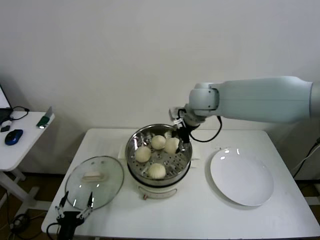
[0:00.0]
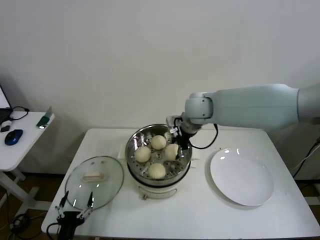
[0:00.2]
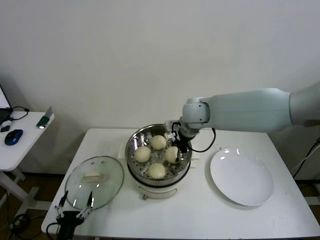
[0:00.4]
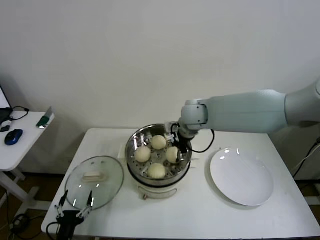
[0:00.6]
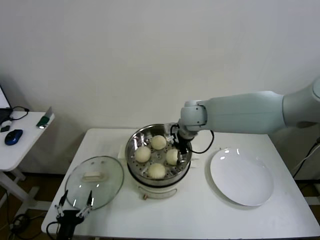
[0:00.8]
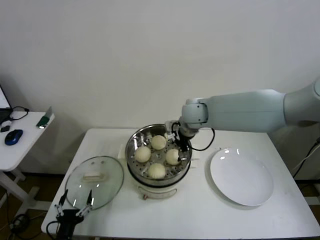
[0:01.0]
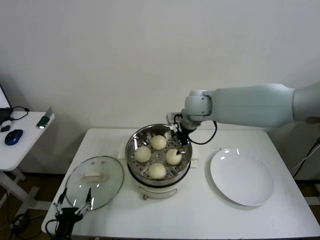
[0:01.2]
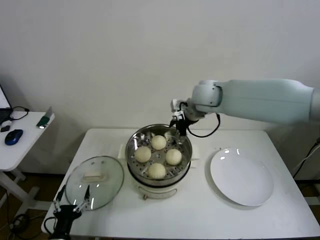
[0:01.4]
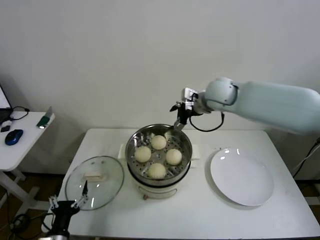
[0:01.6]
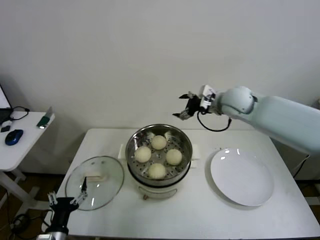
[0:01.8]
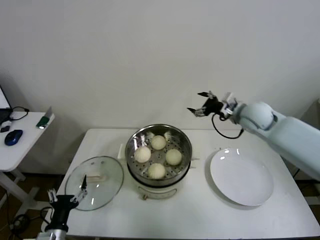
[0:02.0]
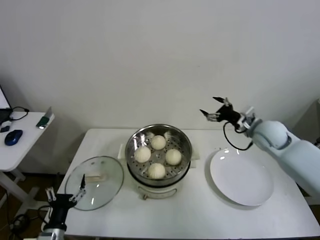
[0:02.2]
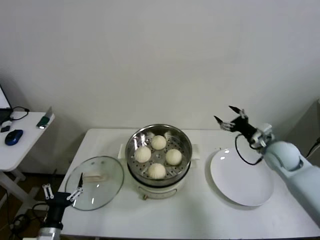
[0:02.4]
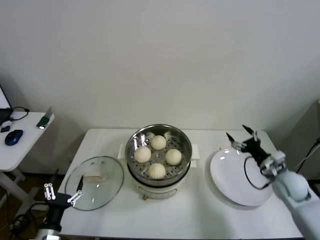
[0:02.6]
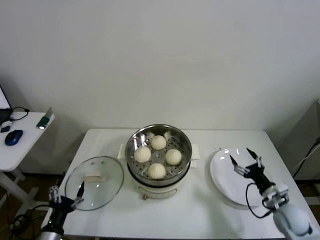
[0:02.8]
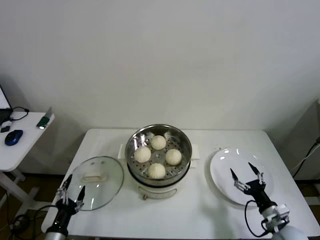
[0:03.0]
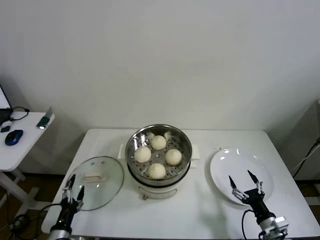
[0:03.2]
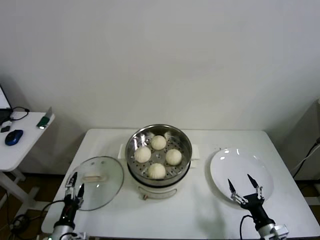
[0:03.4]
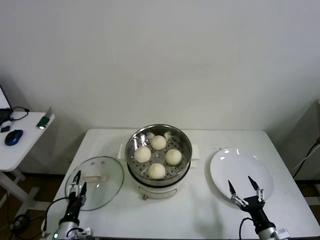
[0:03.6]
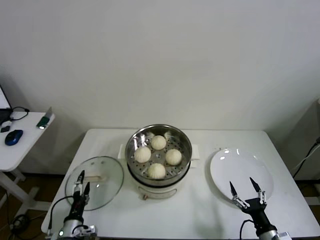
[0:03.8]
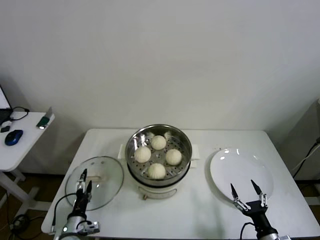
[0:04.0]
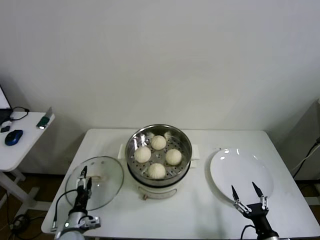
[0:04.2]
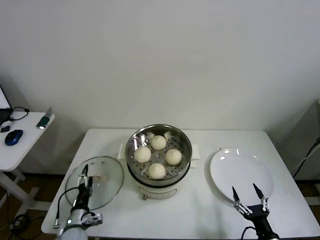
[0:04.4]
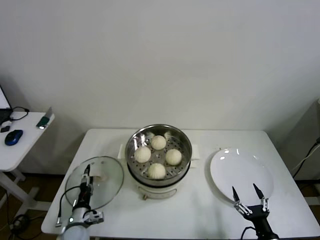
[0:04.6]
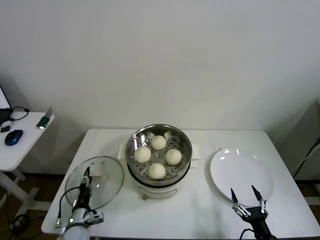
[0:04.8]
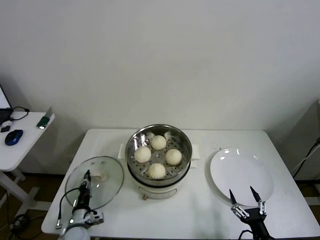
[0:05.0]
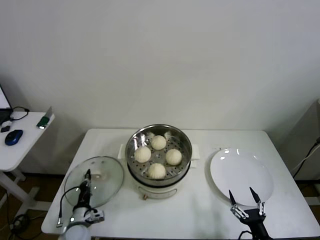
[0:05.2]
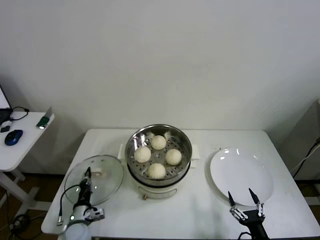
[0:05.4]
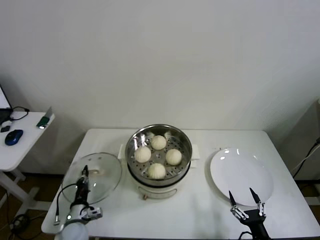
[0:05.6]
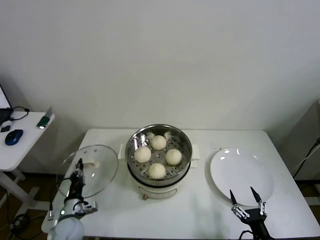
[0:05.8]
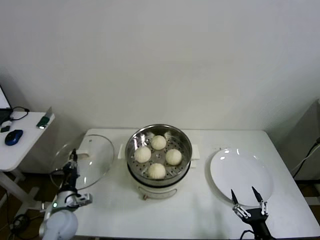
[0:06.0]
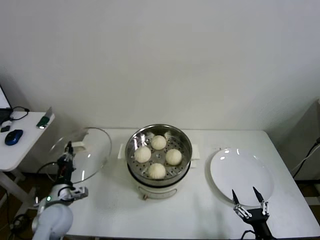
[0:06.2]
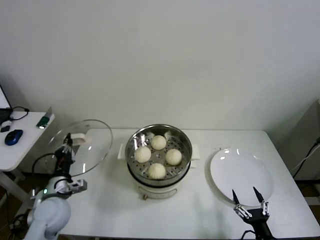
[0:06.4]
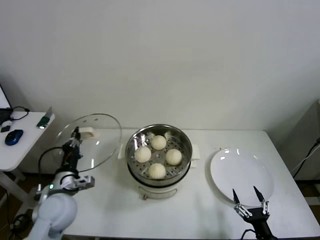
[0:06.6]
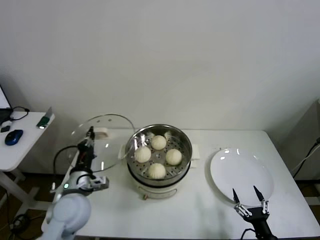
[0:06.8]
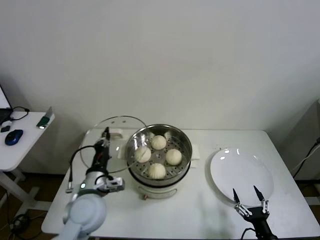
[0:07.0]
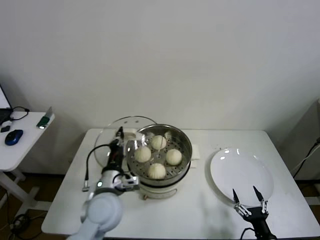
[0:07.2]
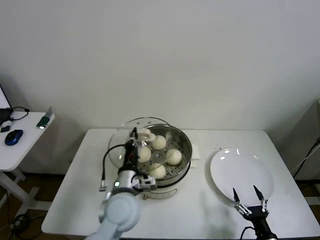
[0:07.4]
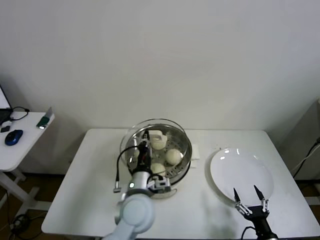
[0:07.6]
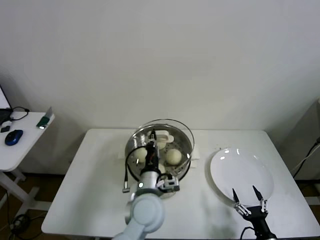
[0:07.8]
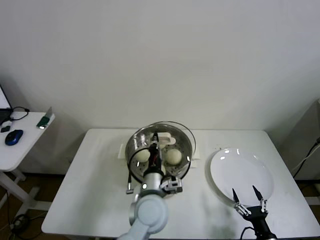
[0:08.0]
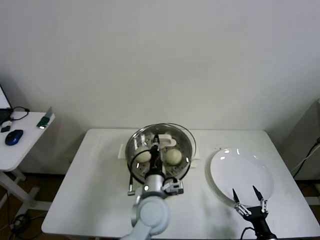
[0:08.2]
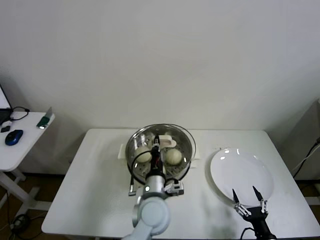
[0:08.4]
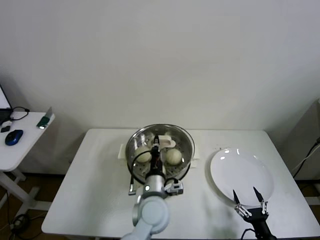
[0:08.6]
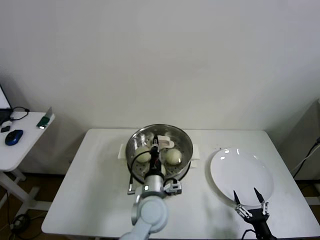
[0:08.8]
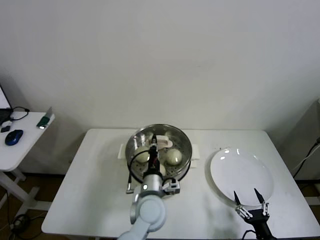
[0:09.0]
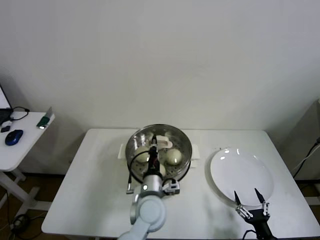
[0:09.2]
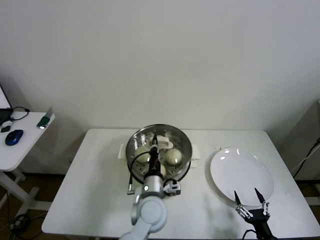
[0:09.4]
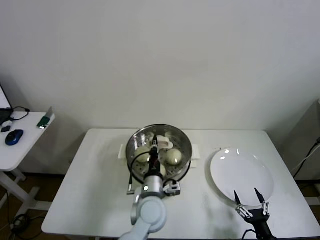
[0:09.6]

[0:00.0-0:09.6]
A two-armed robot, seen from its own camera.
Step, 1.2 to 5.0 s: Grasp the pot lid with left gripper.
0.0 to 1.6 s: The right gripper goes roughly 5 cm to the right, and opens.
1.6 to 3.2 s: The right gripper goes some 50 cm downward, backward and to the right.
3.2 to 4.8 s: The right gripper goes about 5 cm backward; the left gripper goes some 10 cm forward and downward, and closes up.
4.8 to 6.4 s: The left gripper shifts roughly 15 cm upward, and closes.
6.4 to 8.0 s: The left gripper travels to the right by roughly 30 cm.
8.0 to 9.6 s: The grippers move only a little.

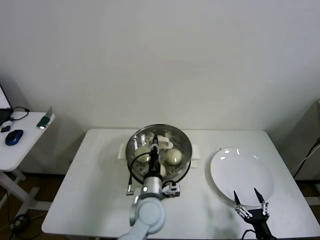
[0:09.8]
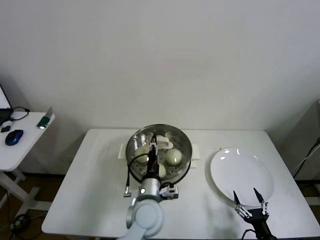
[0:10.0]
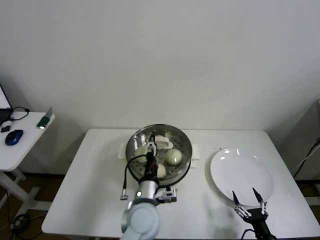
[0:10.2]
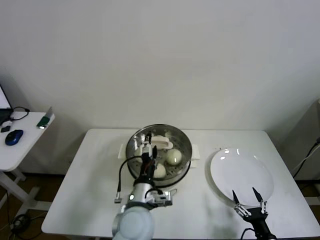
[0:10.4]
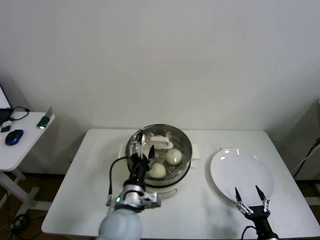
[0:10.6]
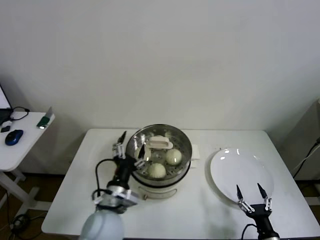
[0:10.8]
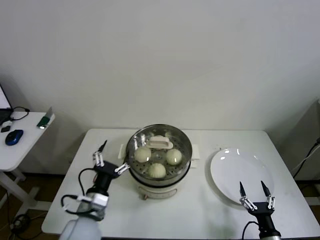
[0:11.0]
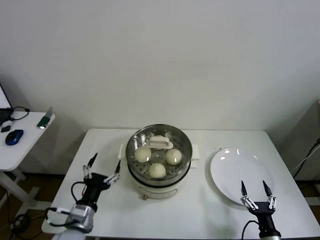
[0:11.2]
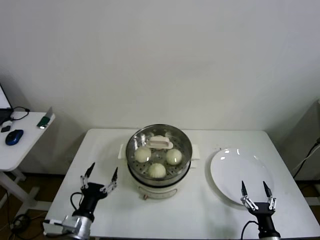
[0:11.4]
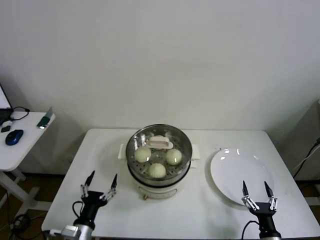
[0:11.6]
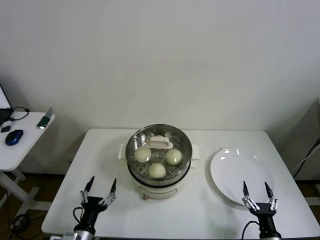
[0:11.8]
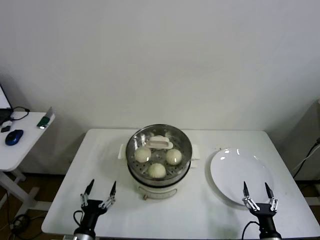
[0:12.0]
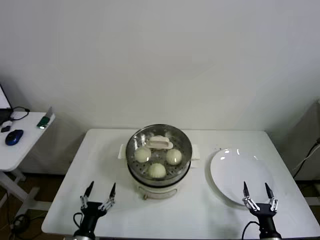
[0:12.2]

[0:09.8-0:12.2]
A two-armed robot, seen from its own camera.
9.8 to 11.0 s: The left gripper moves to the left, roughly 15 cm, and opens.
11.0 to 12.2 s: The left gripper shifts approximately 20 cm downward, backward and to the left.

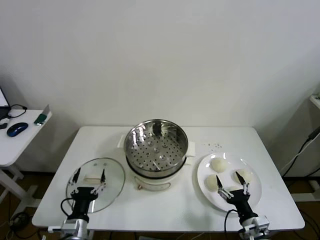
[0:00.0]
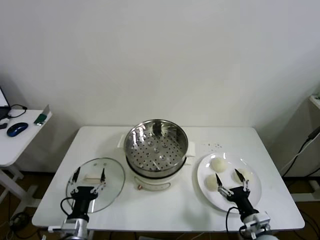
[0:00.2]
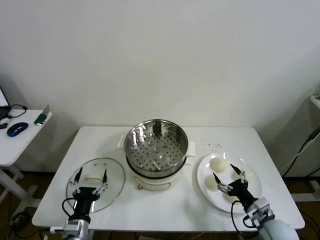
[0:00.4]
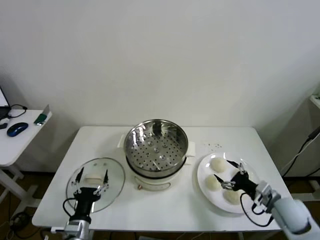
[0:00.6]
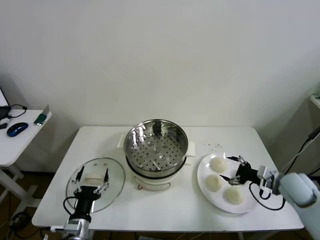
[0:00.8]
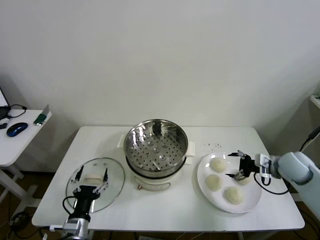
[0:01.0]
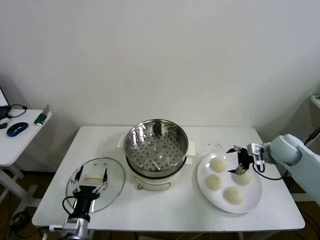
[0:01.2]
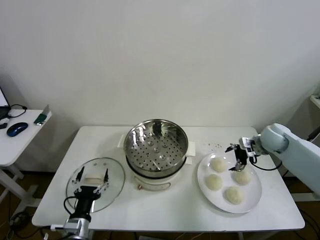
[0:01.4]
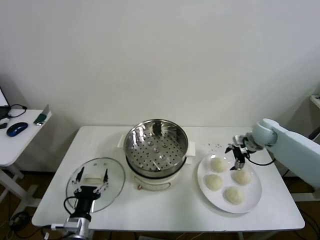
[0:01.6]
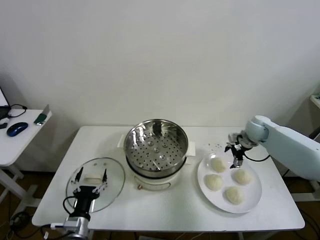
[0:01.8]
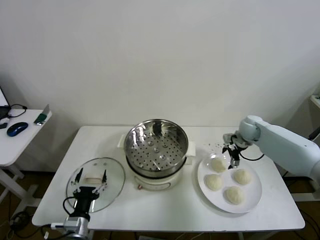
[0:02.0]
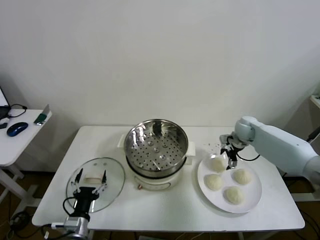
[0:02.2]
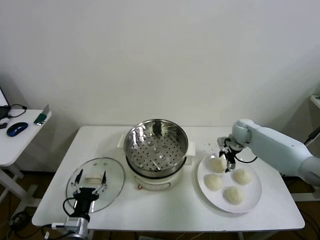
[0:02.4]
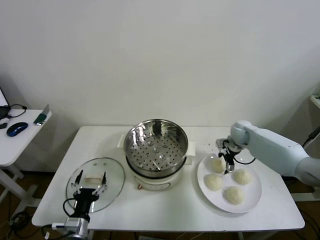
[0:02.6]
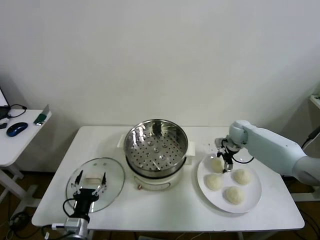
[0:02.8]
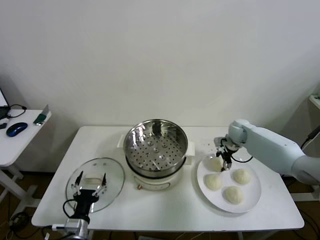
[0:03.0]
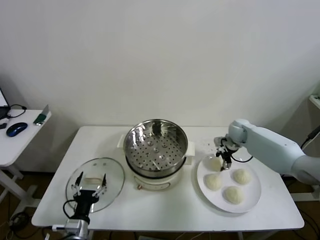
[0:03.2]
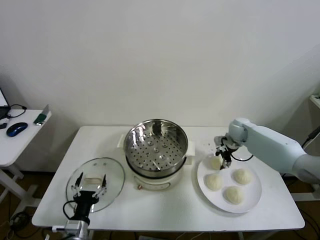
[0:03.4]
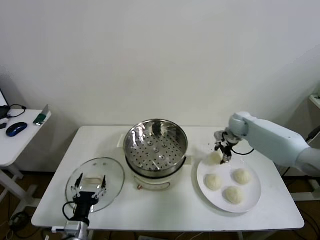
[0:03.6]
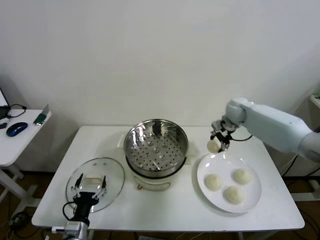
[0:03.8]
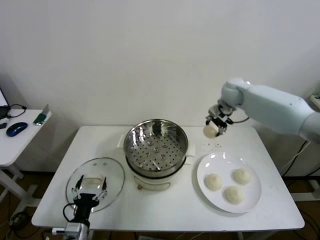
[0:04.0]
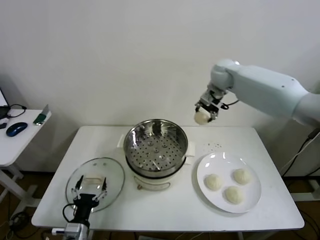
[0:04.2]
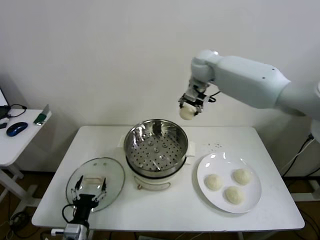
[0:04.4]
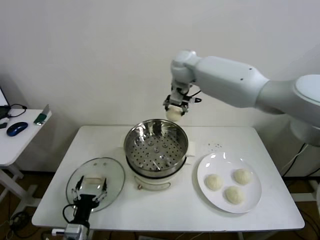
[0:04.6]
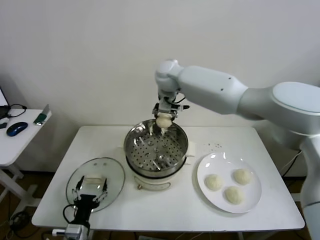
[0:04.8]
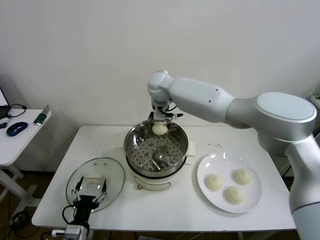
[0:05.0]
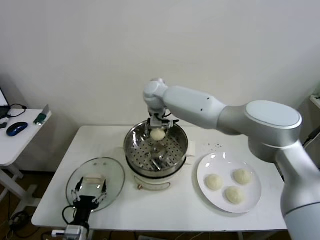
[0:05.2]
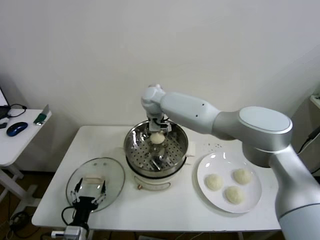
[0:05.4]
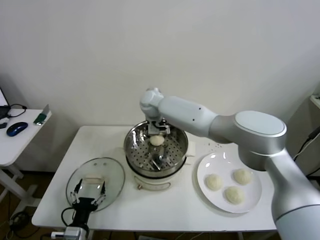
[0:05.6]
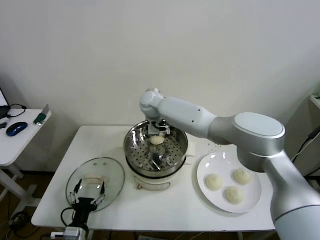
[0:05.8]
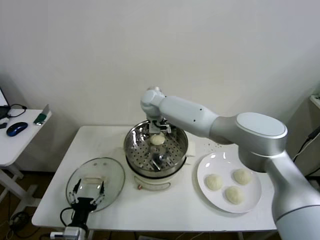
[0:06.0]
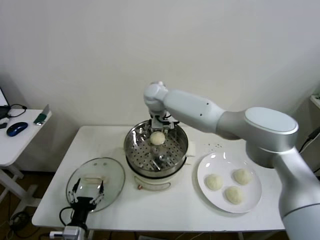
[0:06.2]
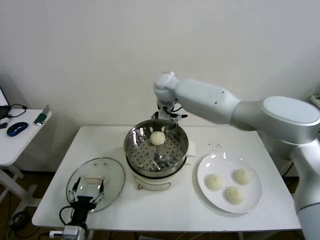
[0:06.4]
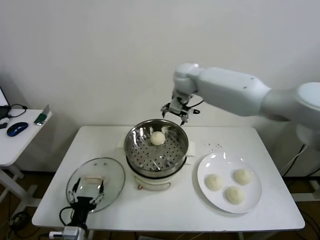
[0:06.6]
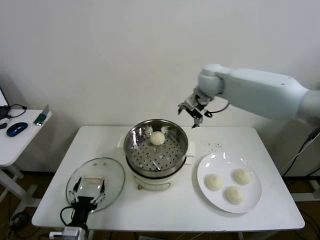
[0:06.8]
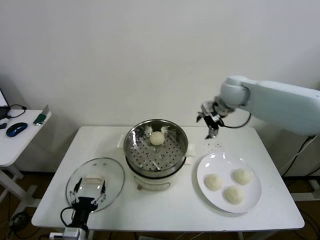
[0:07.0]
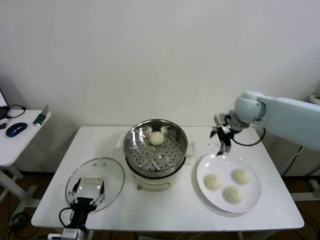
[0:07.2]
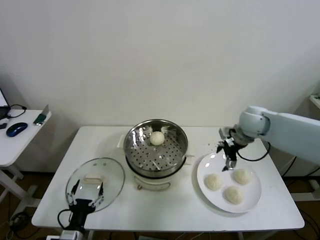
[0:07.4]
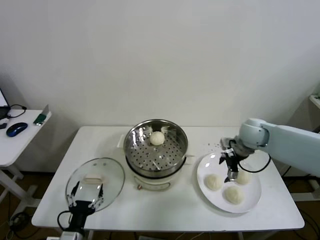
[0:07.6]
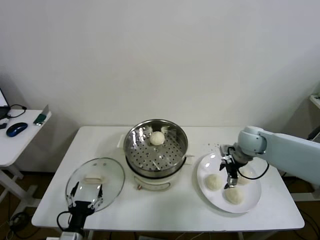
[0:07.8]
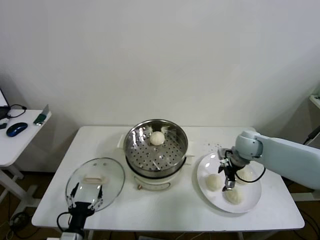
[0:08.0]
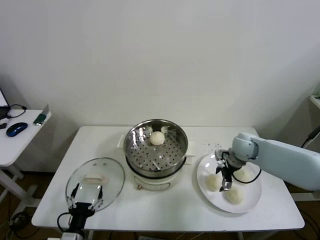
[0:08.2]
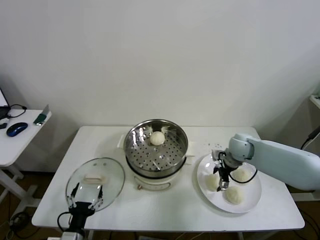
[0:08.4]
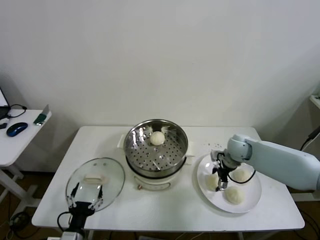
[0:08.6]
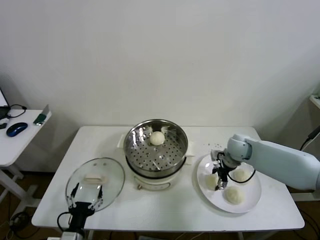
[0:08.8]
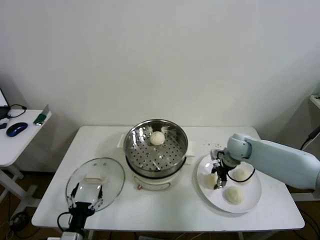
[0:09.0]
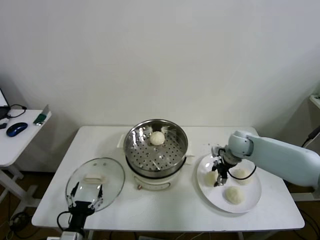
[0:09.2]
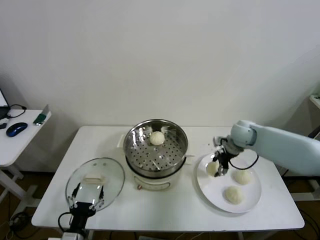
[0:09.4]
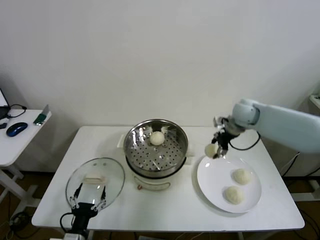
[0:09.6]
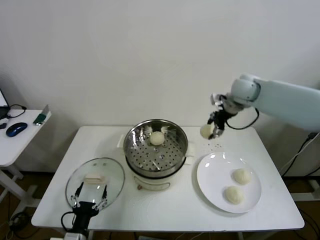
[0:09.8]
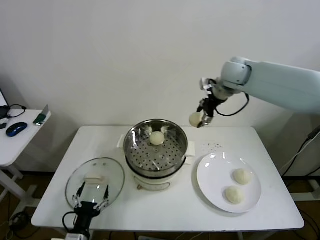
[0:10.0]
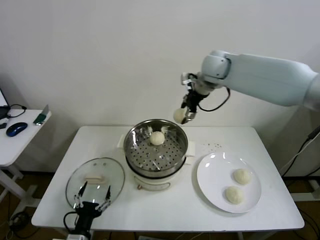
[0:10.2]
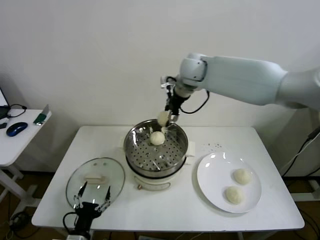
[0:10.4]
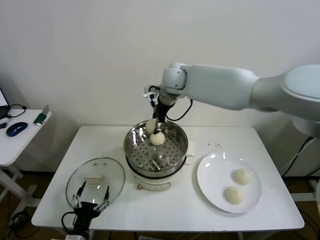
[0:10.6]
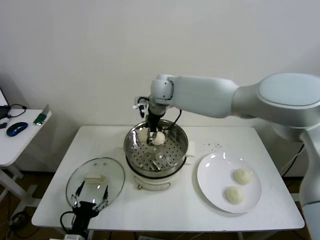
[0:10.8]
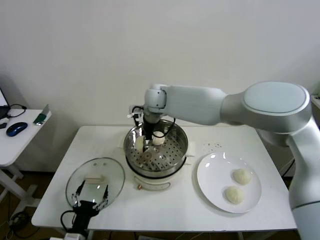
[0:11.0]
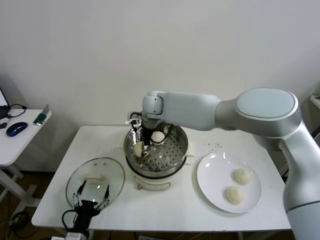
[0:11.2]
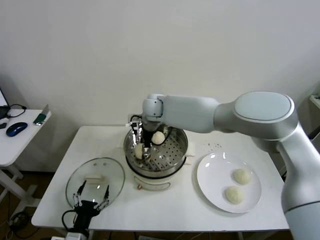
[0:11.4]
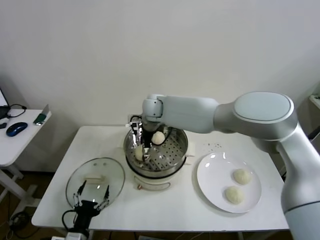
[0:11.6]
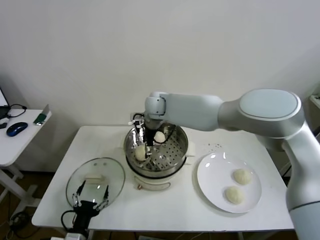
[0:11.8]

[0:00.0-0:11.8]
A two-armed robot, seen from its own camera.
Step, 0.0 to 3.0 s: Grasp the baozi in the plate with right gripper.
Step, 3.2 to 5.8 s: Place the baozi on the steamer with right gripper.
Step, 6.0 to 8.8 s: Grasp the baozi in the plate with right gripper.
Step, 9.0 to 11.6 s: Place the baozi on the steamer with right gripper.
1.4 to 3.0 s: The right gripper heads forward, to the left and downward, covering about 10 cm, and closes its fingers.
3.0 to 4.4 s: The right gripper goes about 35 cm upward and to the left.
4.4 to 6.0 s: The right gripper heads to the left and downward, covering some 20 cm, and opens.
6.0 to 7.4 s: The right gripper goes roughly 35 cm to the right.
7.4 to 8.8 s: The right gripper travels downward by approximately 10 cm, and closes its fingers.
8.8 to 10.4 s: The right gripper heads upward and to the left, covering approximately 35 cm.
10.4 to 11.8 s: The right gripper is displaced downward and to the left by about 15 cm, and opens up.
